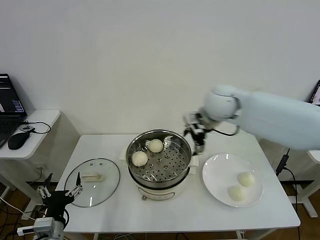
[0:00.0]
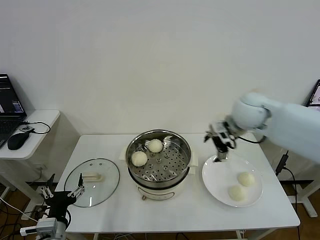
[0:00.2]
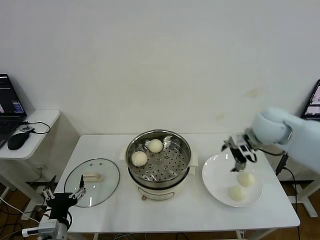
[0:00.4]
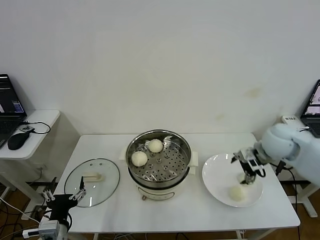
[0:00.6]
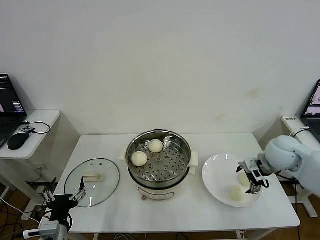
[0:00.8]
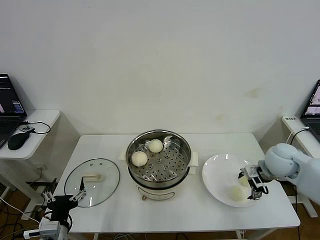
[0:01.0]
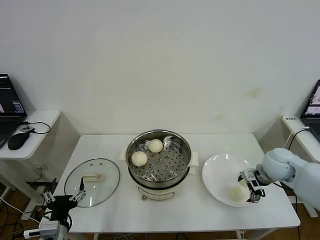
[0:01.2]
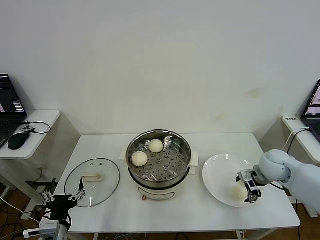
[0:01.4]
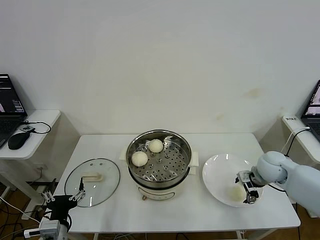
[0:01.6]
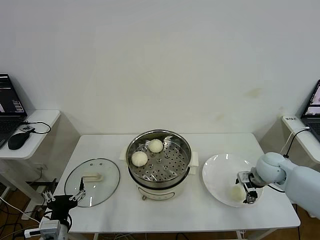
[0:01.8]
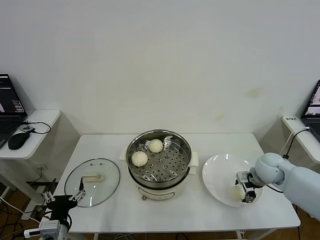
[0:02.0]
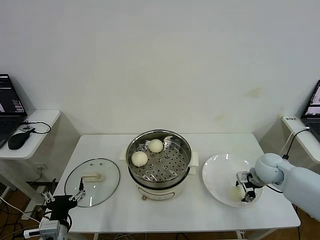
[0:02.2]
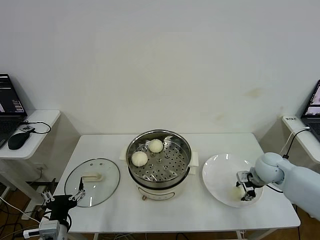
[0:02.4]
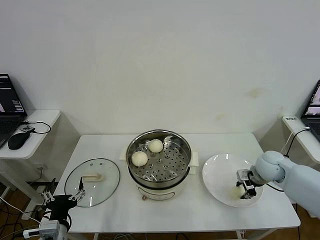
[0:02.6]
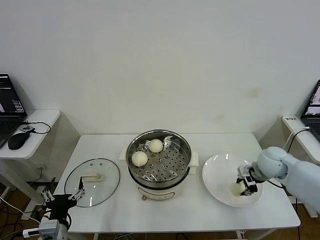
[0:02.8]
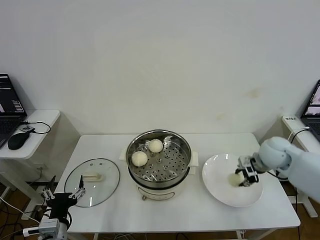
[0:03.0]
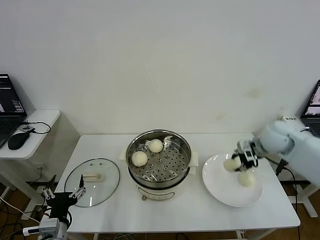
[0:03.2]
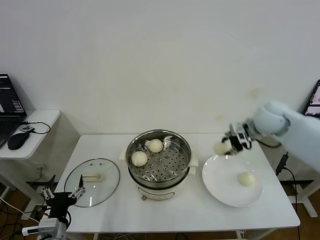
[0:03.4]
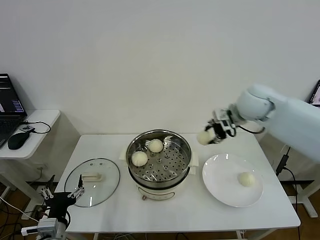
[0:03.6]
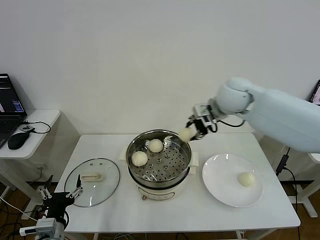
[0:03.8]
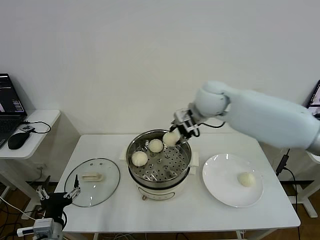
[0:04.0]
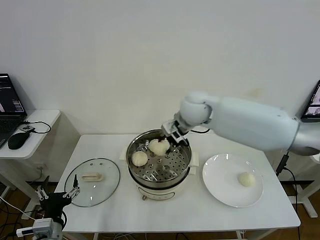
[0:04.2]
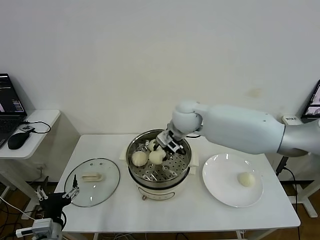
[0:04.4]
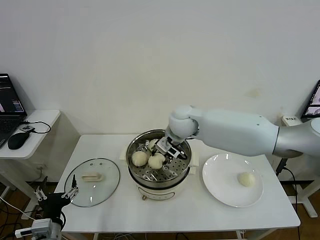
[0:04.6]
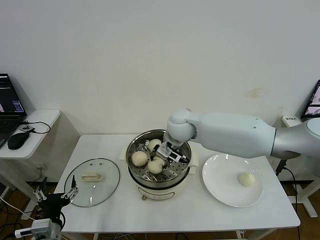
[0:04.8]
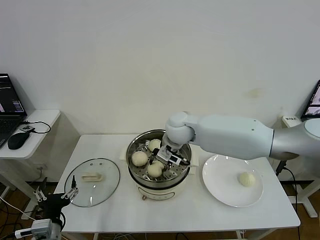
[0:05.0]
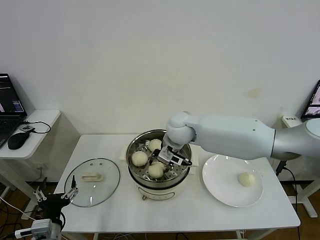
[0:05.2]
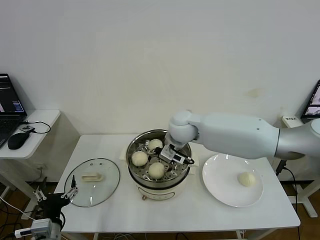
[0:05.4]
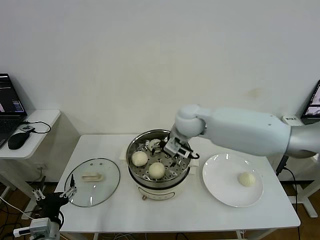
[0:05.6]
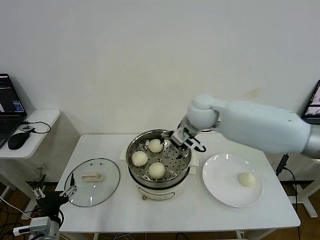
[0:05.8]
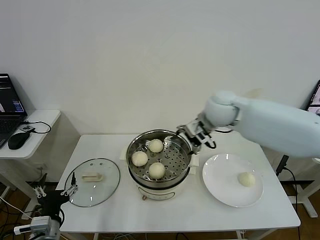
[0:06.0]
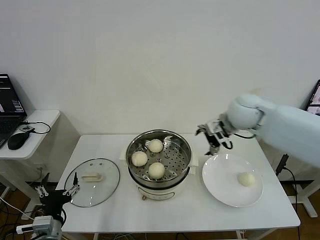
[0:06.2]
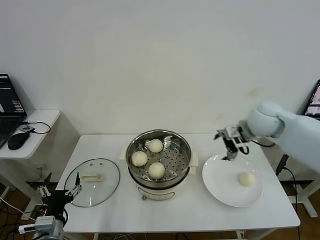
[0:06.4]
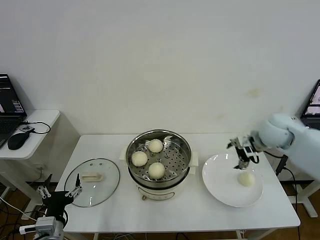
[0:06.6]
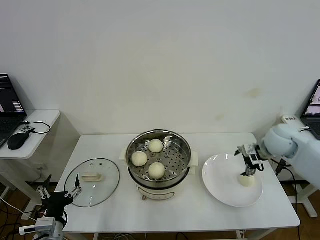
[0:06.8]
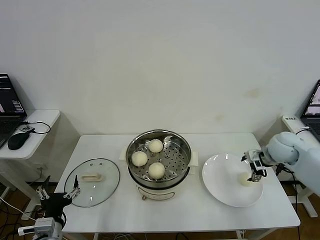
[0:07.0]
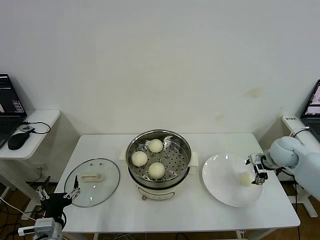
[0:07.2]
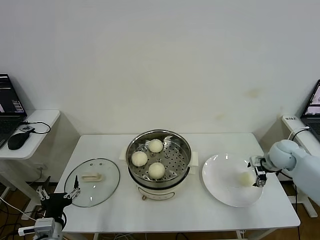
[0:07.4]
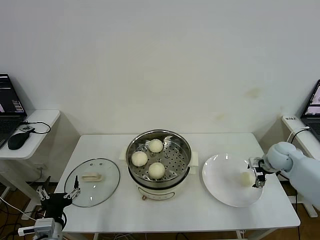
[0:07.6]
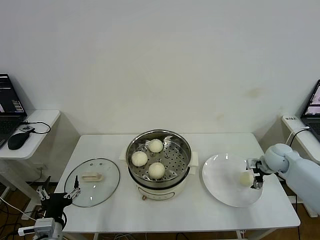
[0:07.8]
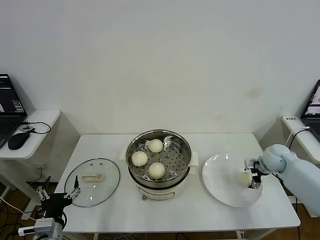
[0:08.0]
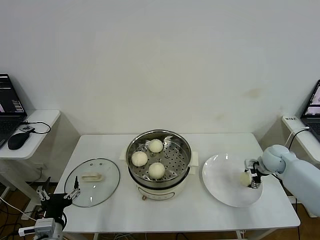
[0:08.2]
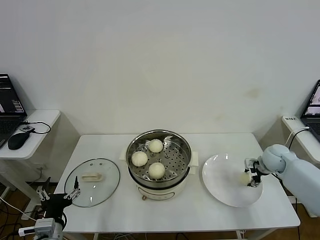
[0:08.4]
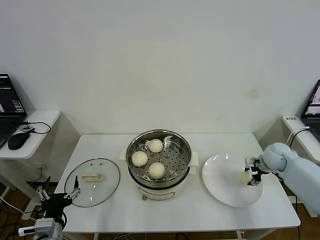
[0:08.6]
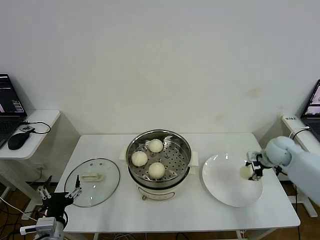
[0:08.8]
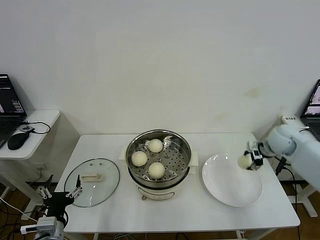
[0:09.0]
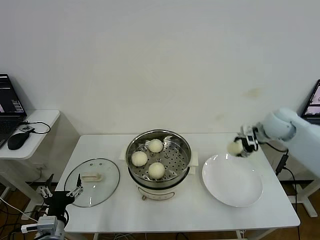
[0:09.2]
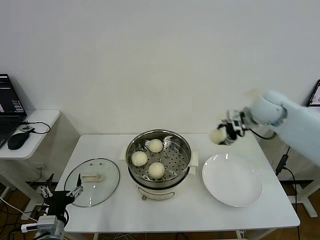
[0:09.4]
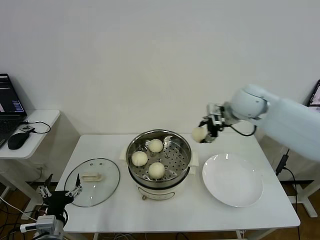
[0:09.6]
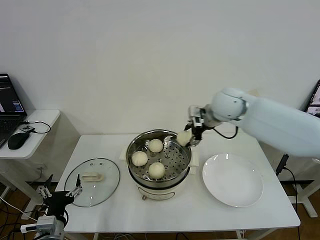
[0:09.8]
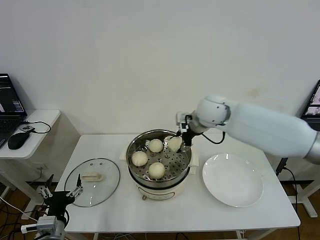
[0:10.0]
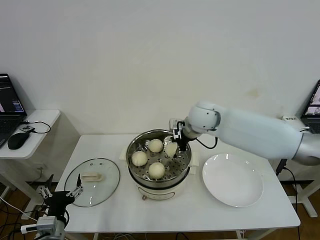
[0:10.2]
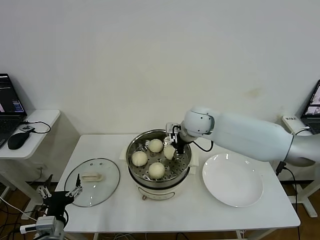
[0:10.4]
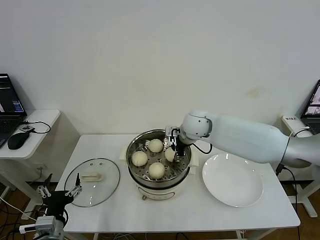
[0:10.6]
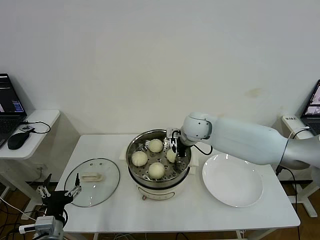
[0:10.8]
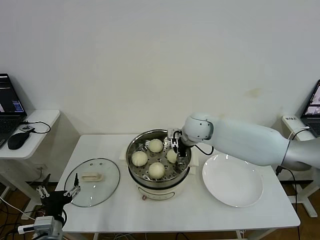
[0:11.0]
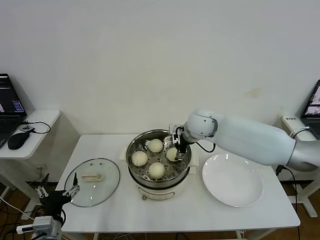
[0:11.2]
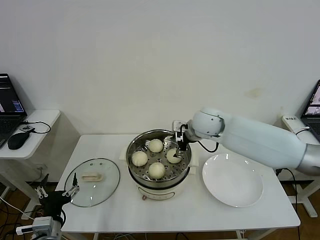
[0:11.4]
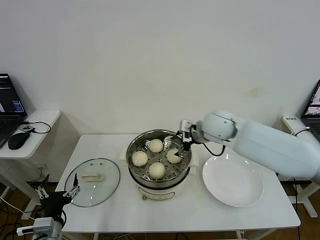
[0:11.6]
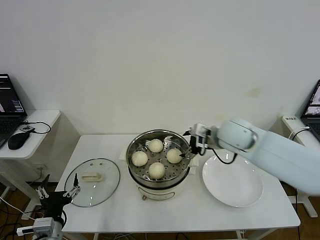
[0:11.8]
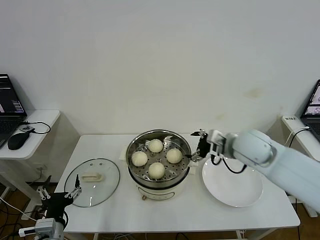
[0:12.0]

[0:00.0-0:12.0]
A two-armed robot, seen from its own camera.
Step, 0:00.0 to 0:02.4: Grasp the baozi in the plate with right gripper.
Step, 0:02.6 to 0:05.6: Place the baozi on the steamer with right gripper.
Step, 0:05.8 to 0:08.4: Grasp the baozi in the plate with right gripper.
Step, 0:08.6 to 0:11.0: Place the baozi on the steamer with right gripper.
0:00.0 to 0:01.6: The right gripper travels downward and to the right by some 25 cm.
0:01.6 to 0:03.0: The right gripper is displaced upward by about 5 cm, and closes its fingers.
0:03.0 to 0:04.4: The right gripper travels to the left by about 30 cm.
0:04.4 to 0:06.0: The right gripper travels to the right by approximately 10 cm, and opens up.
0:06.0 to 0:07.6: The right gripper travels to the right and downward by approximately 30 cm.
0:07.6 to 0:09.0: The right gripper moves upward, some 10 cm, and closes its fingers.
0:09.0 to 0:10.4: The right gripper is displaced to the left by about 30 cm.
0:10.4 to 0:12.0: The right gripper is displaced to the right and backward by about 15 cm, and opens.

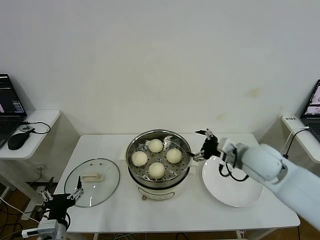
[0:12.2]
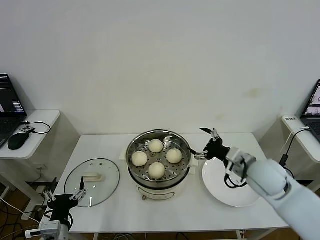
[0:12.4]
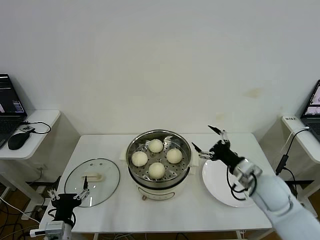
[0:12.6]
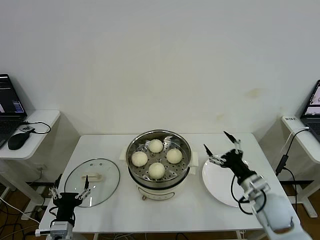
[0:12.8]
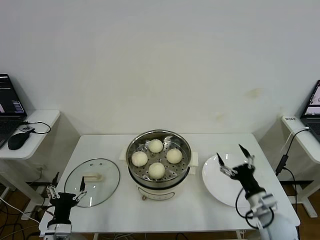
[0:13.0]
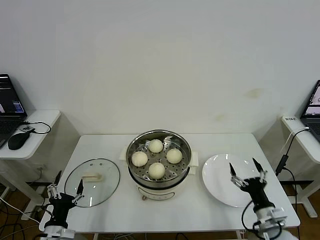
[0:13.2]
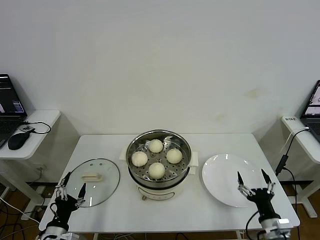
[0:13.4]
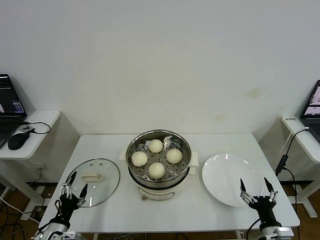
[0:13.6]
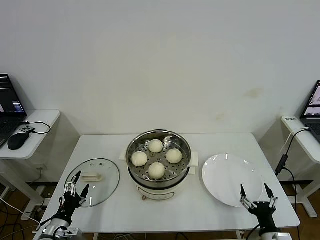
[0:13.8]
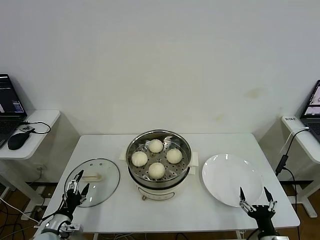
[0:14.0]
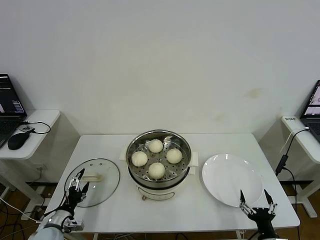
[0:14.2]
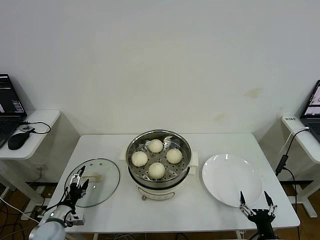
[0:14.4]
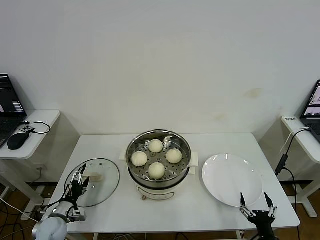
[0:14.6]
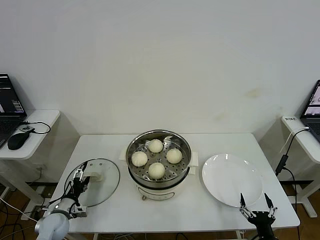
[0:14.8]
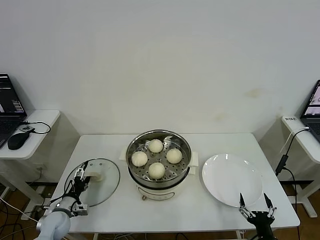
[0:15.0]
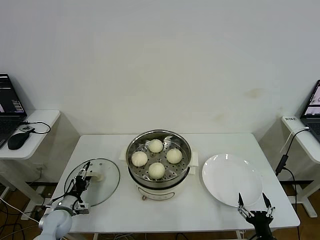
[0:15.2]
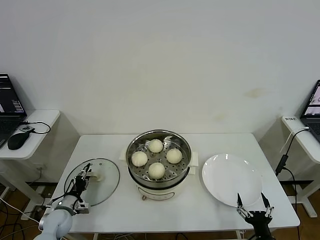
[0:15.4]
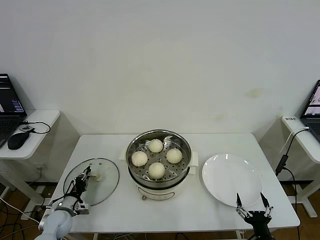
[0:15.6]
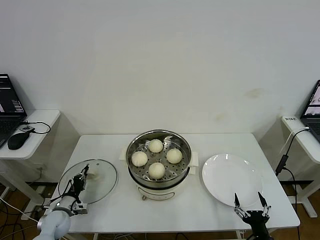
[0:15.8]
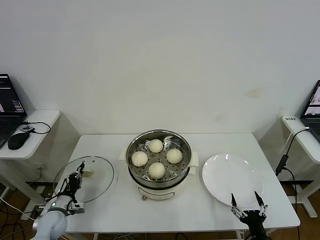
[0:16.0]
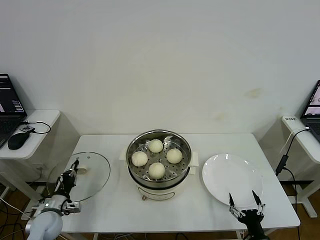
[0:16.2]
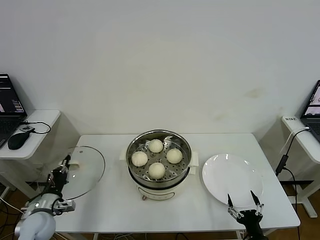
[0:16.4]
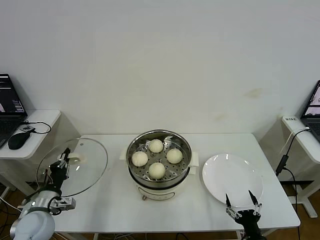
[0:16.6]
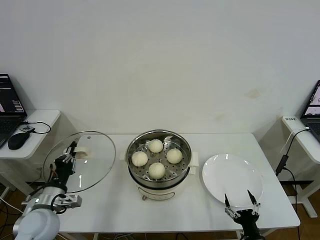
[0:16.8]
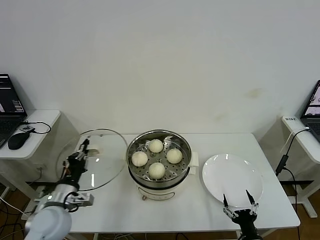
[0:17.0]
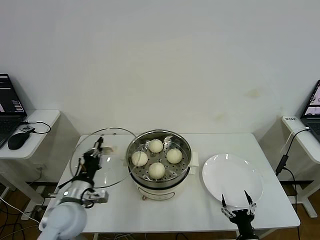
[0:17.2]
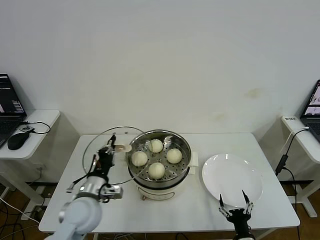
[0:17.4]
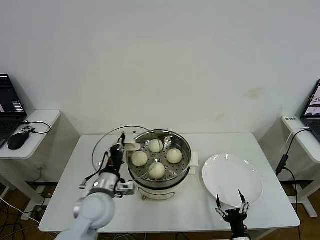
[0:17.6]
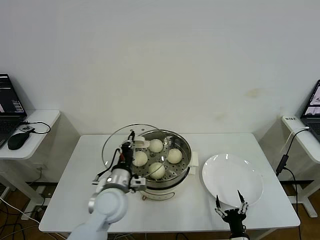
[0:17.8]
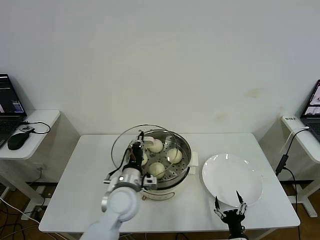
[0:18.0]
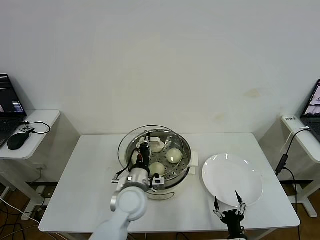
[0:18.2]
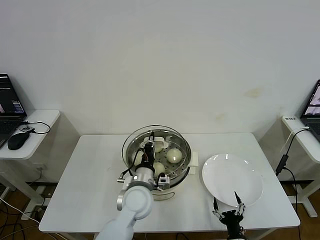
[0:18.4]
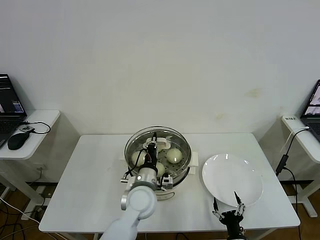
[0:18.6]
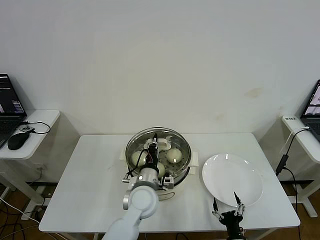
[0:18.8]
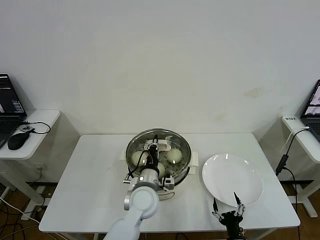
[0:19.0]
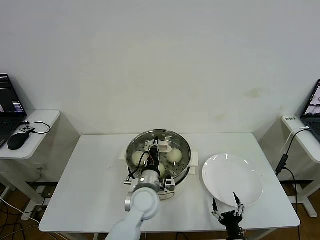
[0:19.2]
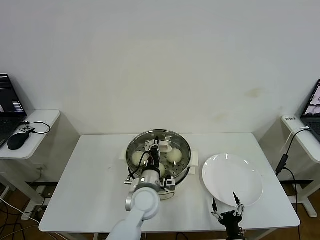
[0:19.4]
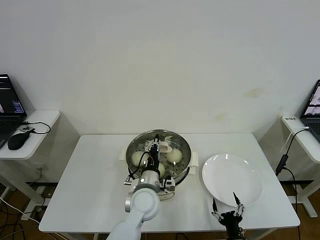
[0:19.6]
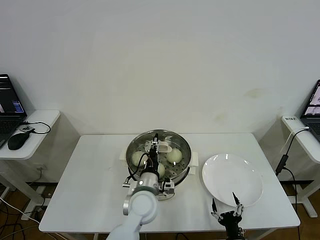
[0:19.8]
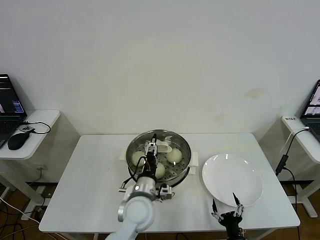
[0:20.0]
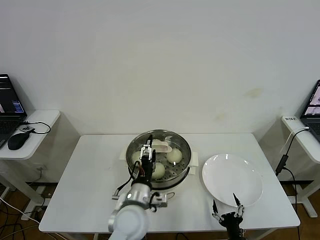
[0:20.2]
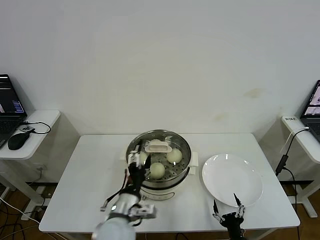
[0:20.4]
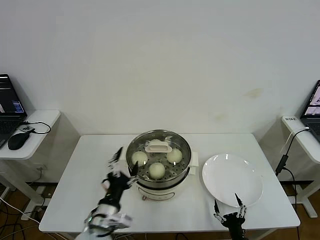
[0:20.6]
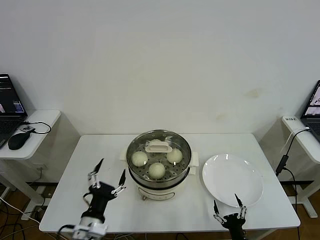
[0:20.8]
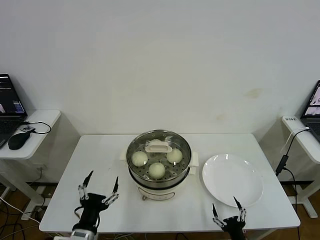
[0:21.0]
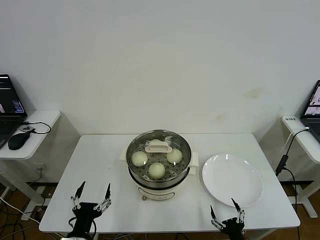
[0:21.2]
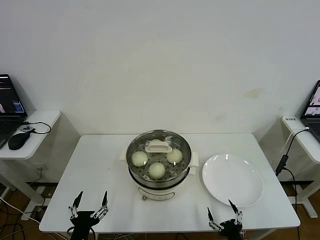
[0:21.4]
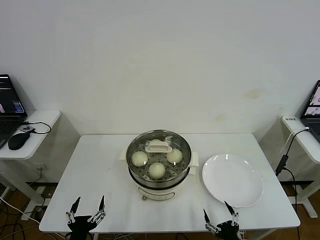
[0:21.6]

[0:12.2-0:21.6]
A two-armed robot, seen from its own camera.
Step, 0:12.2 to 0:15.8: Grasp the pot lid with left gripper.
Step, 0:16.0 to 0:19.8: Place the pot lid on the steamer with left gripper.
0:12.2 to 0:13.8: The left gripper shifts approximately 10 cm downward and to the left; the right gripper moves downward and backward, about 30 cm.
0:13.8 to 0:15.4: The left gripper goes approximately 15 cm forward and downward, and closes its fingers.
0:15.4 to 0:17.0: The left gripper travels upward and to the right by some 20 cm, and closes.
0:17.0 to 0:18.4: The left gripper shifts approximately 25 cm to the right, while the right gripper changes place by some 5 cm.
0:18.4 to 0:20.0: The left gripper opens its fingers.
0:20.0 to 0:21.6: The right gripper travels upward by some 5 cm. The left gripper goes roughly 25 cm backward and to the left.
